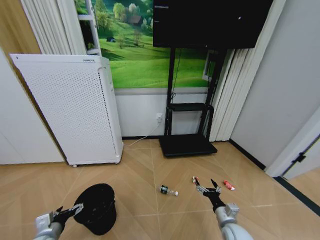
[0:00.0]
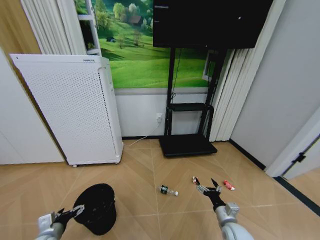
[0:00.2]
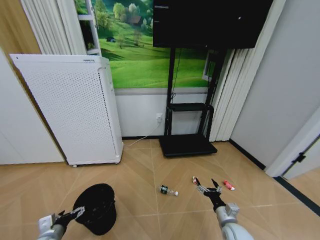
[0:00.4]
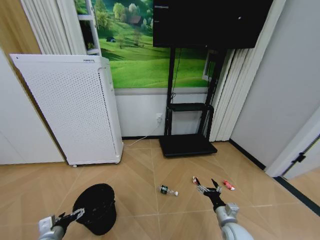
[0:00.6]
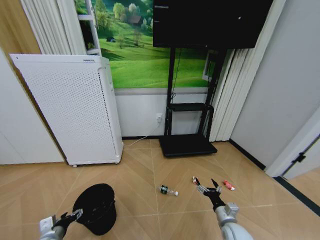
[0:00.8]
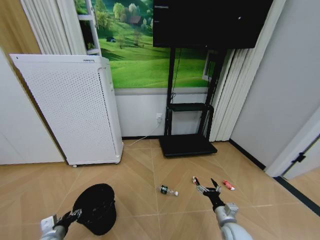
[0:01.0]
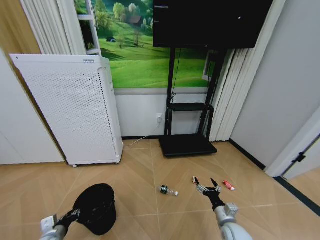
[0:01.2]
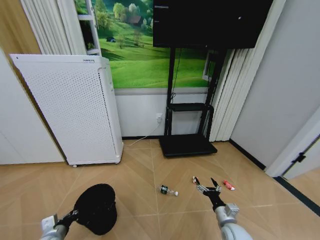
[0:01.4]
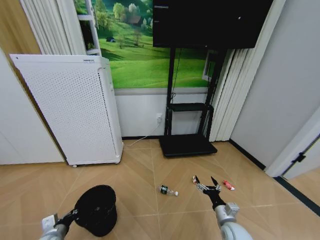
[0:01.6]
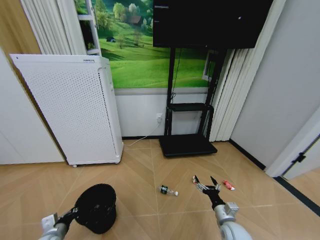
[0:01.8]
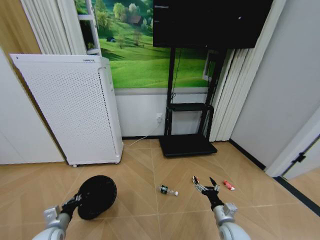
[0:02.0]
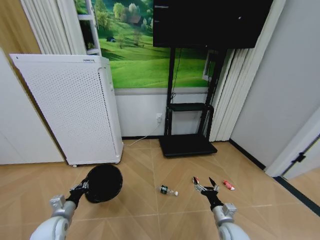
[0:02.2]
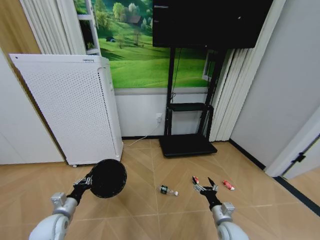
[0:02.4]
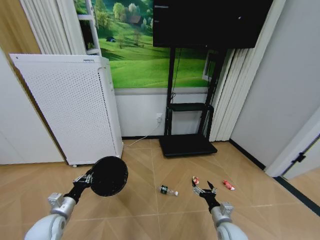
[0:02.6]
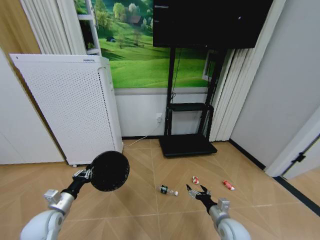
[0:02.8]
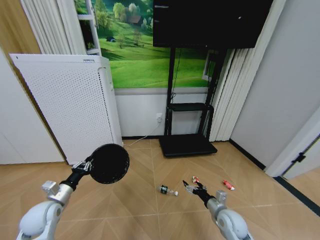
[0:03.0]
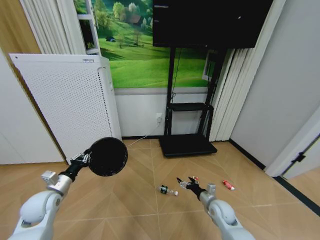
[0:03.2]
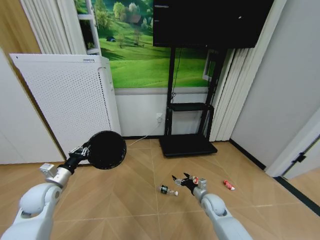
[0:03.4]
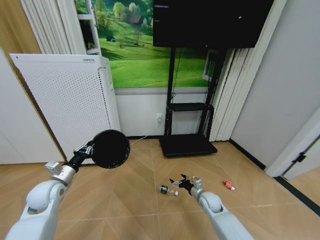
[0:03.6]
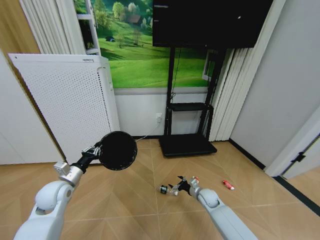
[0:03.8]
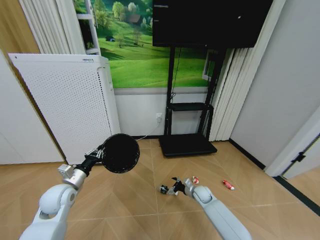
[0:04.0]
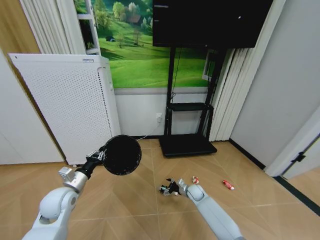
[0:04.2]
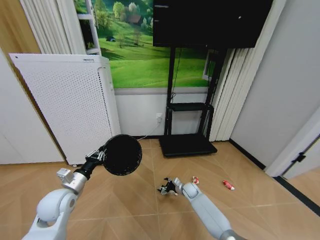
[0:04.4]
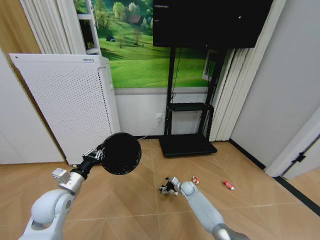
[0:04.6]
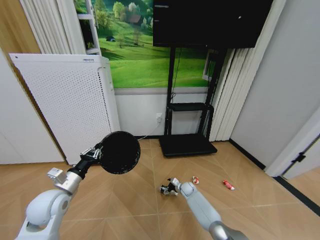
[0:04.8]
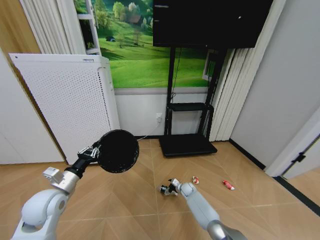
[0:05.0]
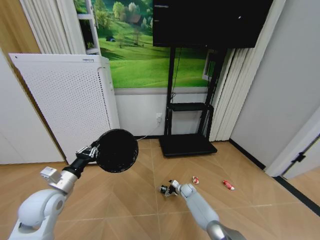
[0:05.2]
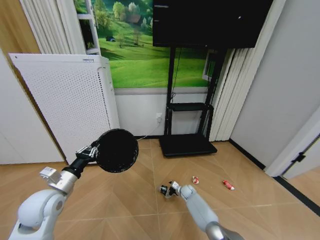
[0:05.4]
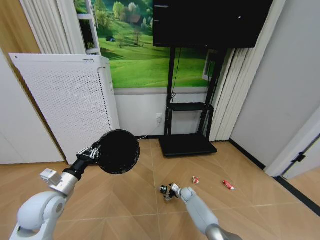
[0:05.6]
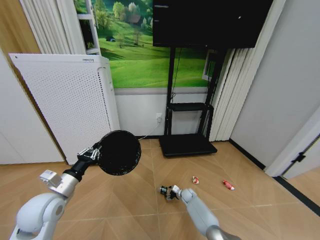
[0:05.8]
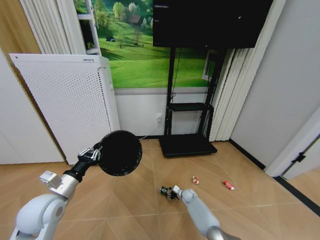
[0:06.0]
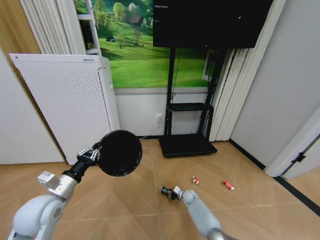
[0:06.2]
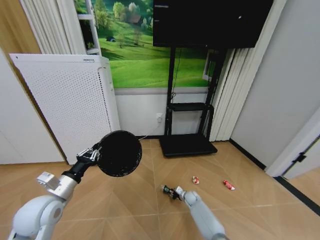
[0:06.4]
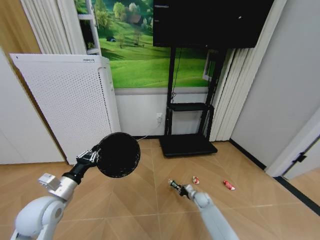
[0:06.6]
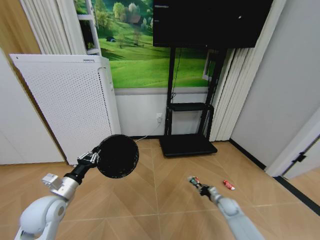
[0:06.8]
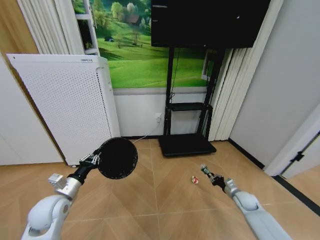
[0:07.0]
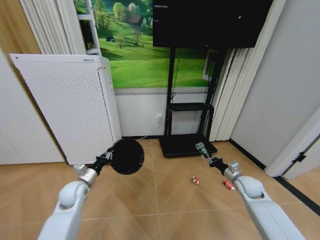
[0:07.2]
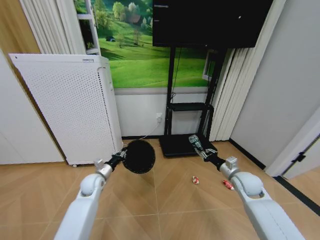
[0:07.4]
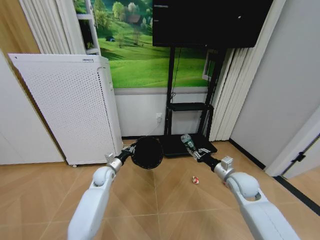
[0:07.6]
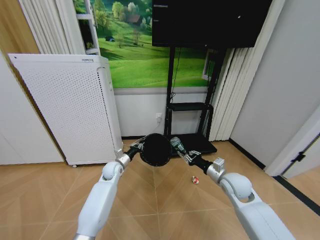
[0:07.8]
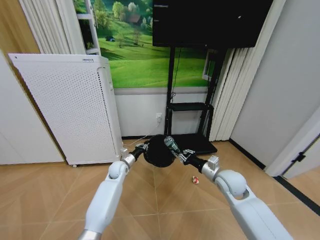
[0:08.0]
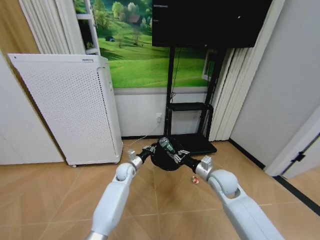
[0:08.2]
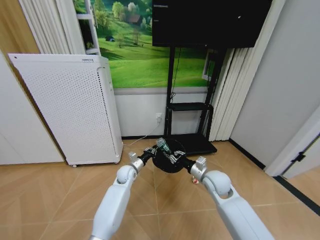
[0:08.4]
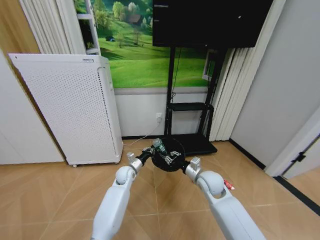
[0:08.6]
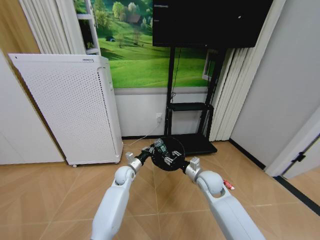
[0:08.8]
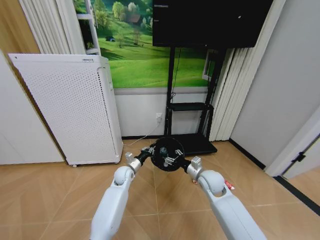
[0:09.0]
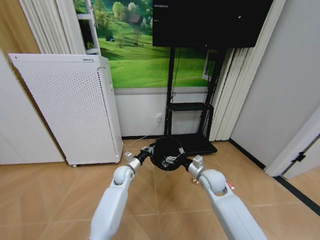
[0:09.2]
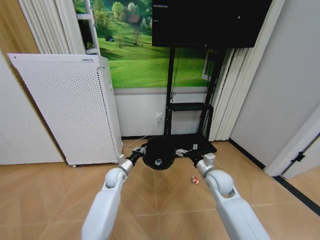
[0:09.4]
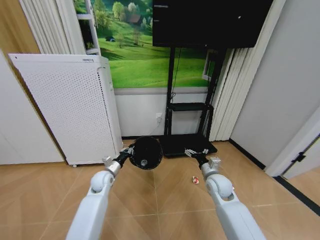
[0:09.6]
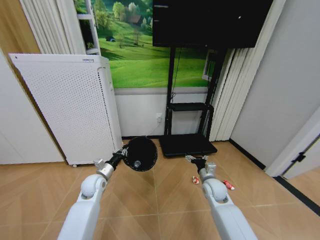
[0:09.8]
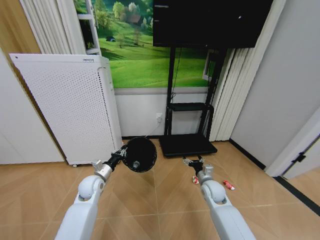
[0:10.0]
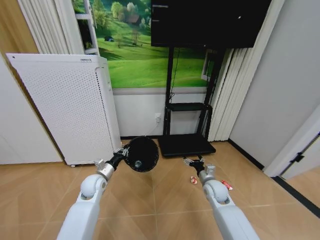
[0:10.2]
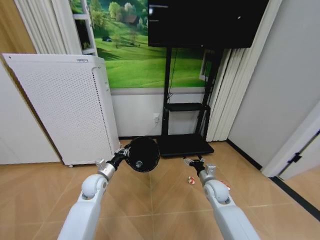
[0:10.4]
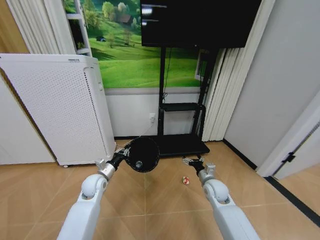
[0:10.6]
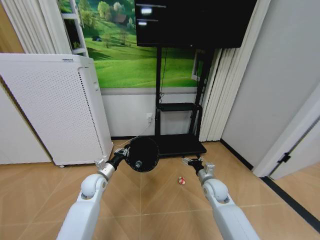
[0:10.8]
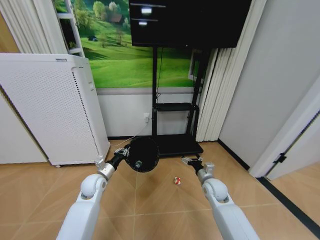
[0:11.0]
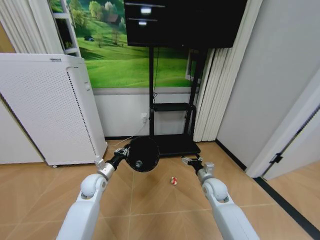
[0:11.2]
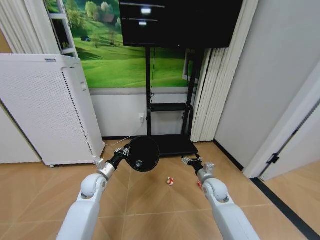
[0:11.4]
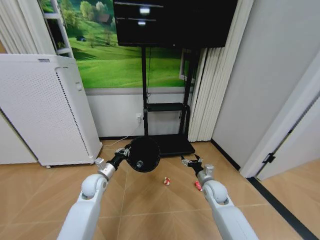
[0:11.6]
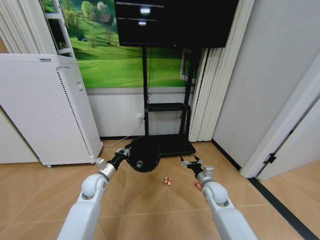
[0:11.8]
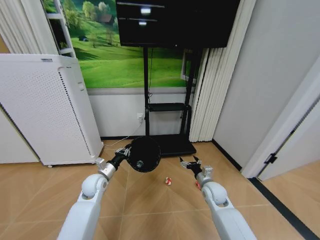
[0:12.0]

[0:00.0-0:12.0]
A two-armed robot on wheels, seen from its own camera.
Task of the whole recording: Pick up the trash bin and place the garbage on the floor into it.
0:00.0 to 0:01.6: The left gripper closes up.
0:01.6 to 0:03.0: The right gripper changes place by approximately 5 cm. Meanwhile the left gripper shifts roughly 15 cm upward and forward.
0:03.0 to 0:04.4: The right gripper goes roughly 25 cm forward, downward and to the left. Meanwhile the left gripper is displaced to the right by roughly 5 cm.
0:04.4 to 0:06.0: The right gripper travels downward by some 5 cm, and closes; the left gripper moves some 5 cm.
0:06.0 to 0:07.6: The left gripper heads forward, downward and to the right, covering approximately 25 cm, while the right gripper heads upward, covering about 30 cm, and closes up.
0:07.6 to 0:09.0: The left gripper moves to the right, approximately 10 cm. Meanwhile the right gripper moves to the left, approximately 10 cm, and opens up.
0:09.0 to 0:10.4: The right gripper moves downward, approximately 5 cm, and opens its fingers. The left gripper heads to the left and backward, covering roughly 15 cm.

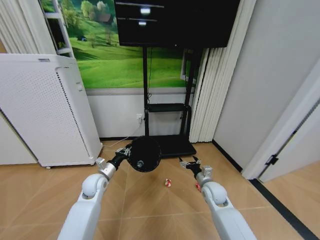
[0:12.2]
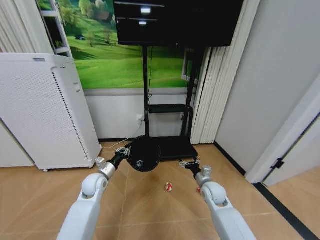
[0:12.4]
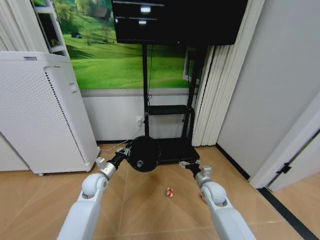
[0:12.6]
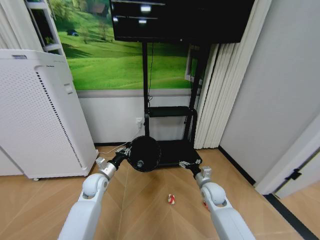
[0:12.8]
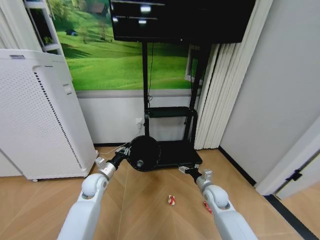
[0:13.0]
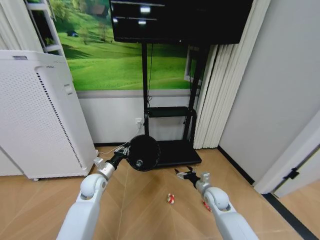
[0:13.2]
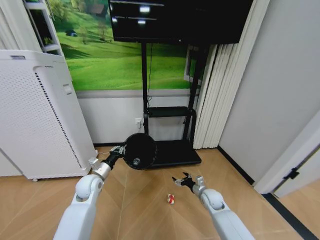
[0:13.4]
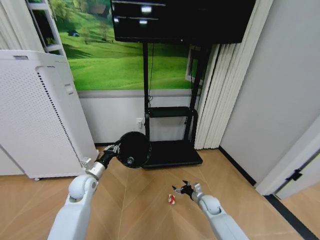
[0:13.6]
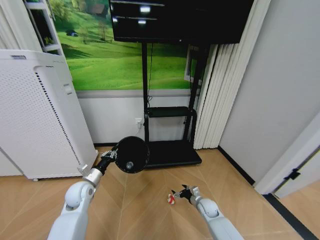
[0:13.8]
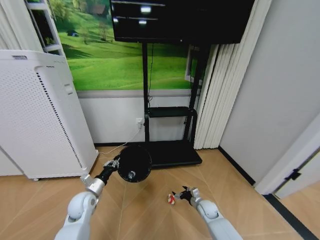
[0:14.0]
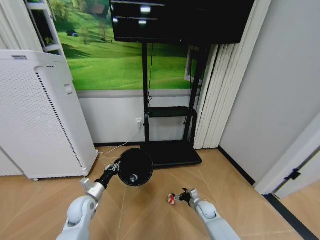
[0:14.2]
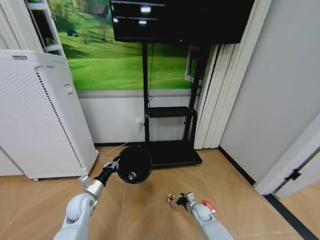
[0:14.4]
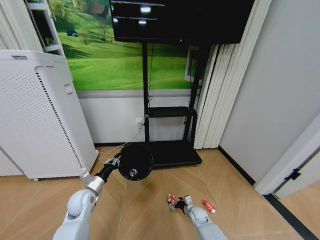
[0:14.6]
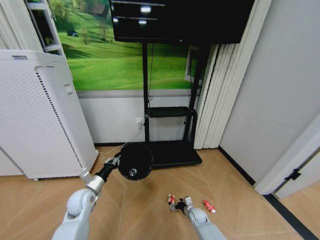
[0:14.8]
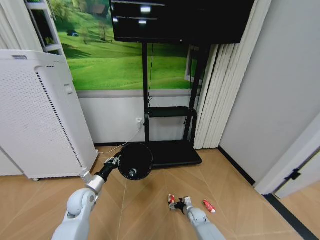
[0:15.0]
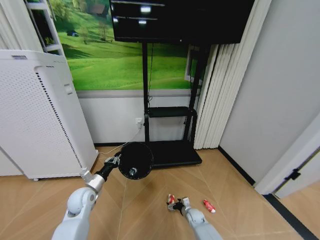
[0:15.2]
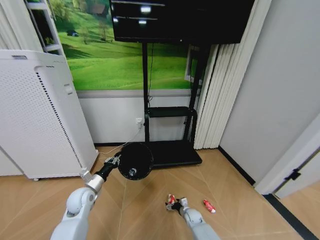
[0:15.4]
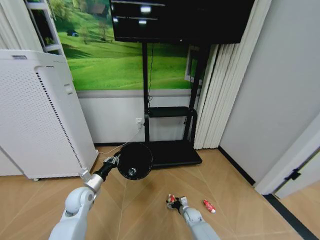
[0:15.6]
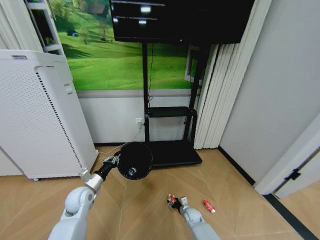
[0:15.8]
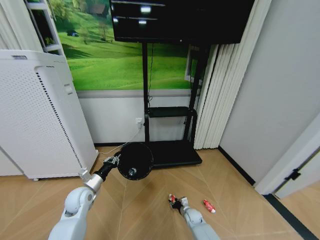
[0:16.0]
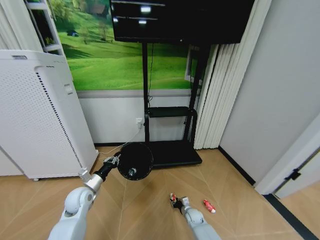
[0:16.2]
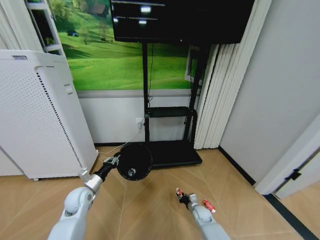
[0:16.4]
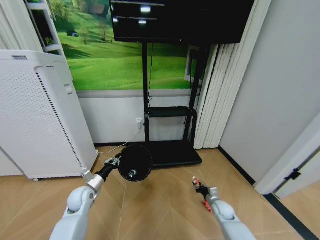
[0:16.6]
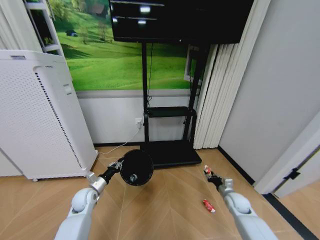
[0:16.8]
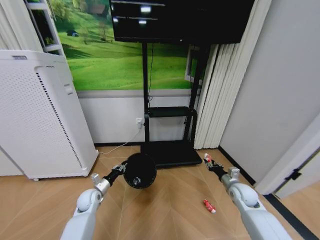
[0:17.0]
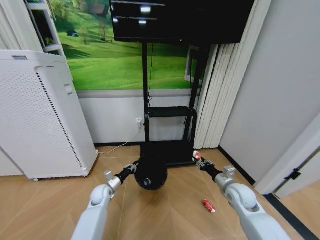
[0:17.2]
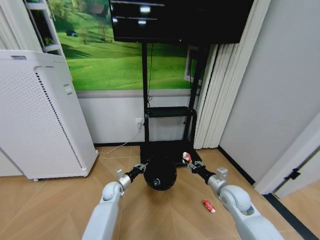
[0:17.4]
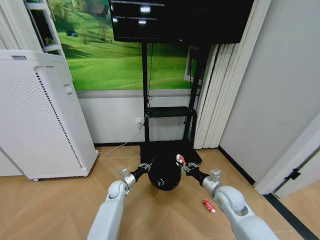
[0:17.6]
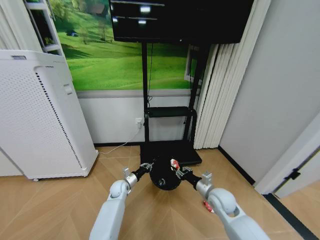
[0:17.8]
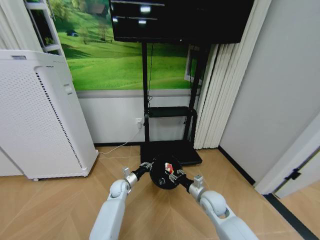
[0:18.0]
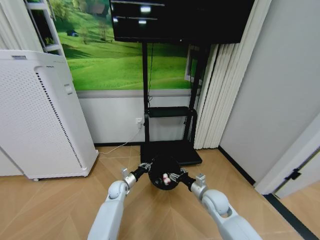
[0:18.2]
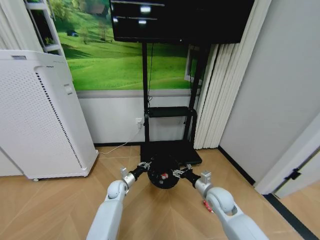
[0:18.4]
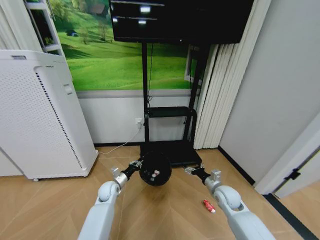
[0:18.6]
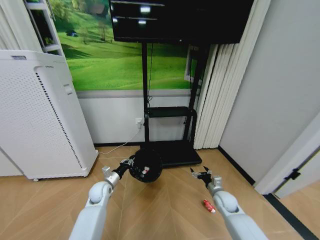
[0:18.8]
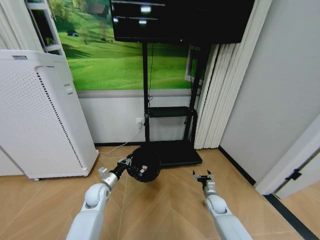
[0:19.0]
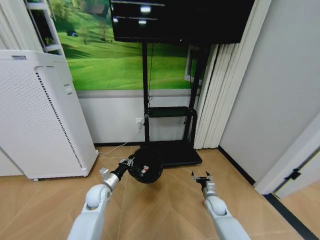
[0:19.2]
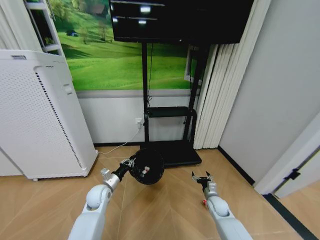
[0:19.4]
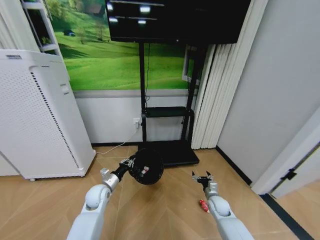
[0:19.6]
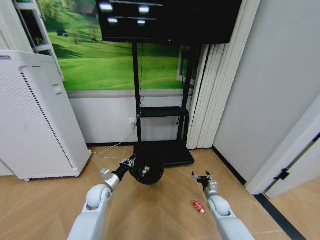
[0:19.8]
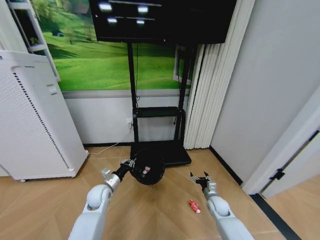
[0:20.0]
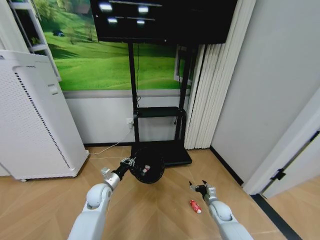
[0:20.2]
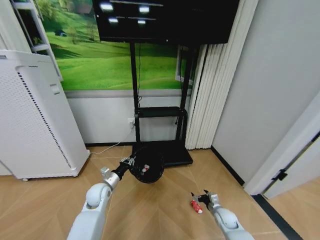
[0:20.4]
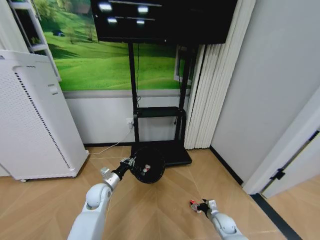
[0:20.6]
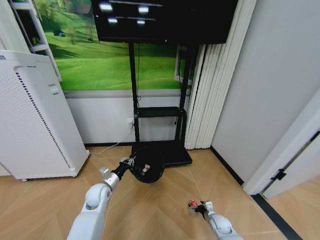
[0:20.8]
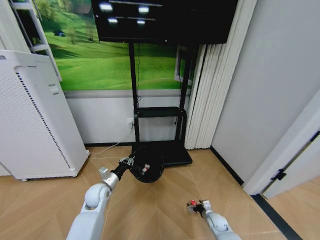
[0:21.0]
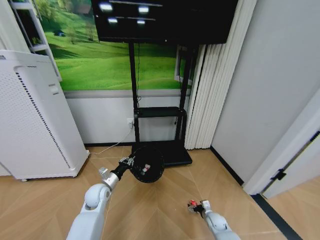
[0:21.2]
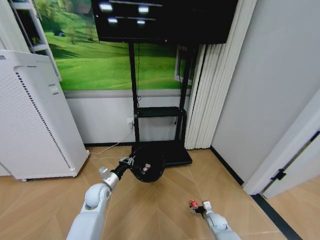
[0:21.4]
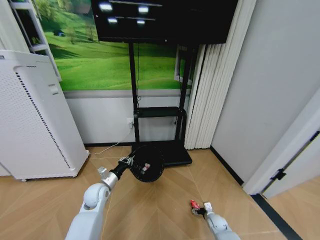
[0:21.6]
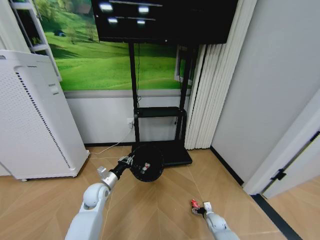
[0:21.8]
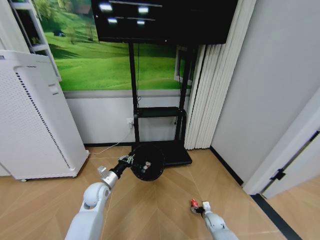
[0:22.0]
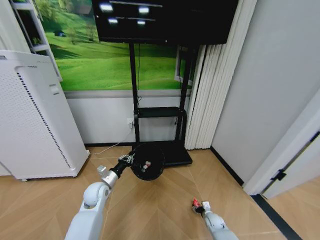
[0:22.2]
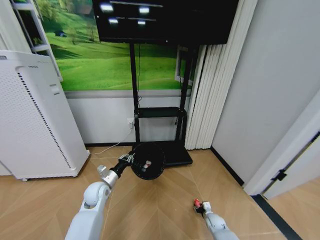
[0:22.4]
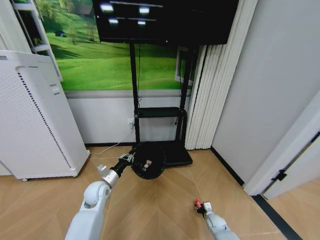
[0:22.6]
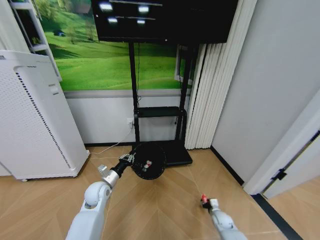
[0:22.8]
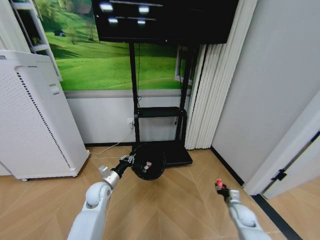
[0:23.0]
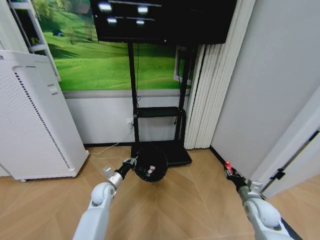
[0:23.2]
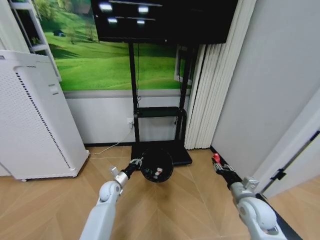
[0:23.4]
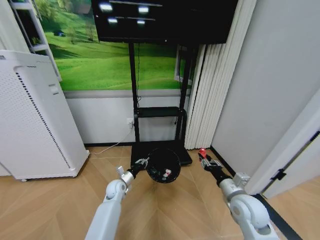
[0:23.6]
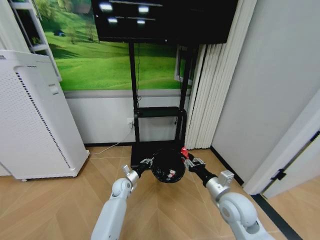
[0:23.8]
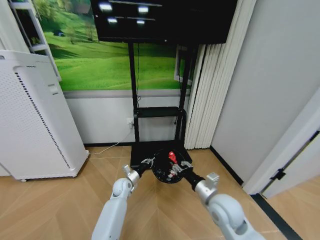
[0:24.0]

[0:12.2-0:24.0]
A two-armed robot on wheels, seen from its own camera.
Task of the whole recording: Pick up the trash bin and place the garbage on the floor into it.
0:12.2 to 0:13.6: The right gripper moves downward, approximately 15 cm.
0:13.6 to 0:15.2: The right gripper travels downward and to the left by roughly 15 cm.
0:15.2 to 0:16.6: The right gripper heads to the right and upward, covering about 10 cm, and closes its fingers.
0:16.6 to 0:18.2: The right gripper shifts some 20 cm upward, and opens its fingers; the left gripper shifts about 20 cm to the right, downward and forward.
0:18.2 to 0:19.6: The right gripper heads downward and to the right, covering roughly 15 cm, and opens its fingers. The left gripper shifts about 10 cm upward, backward and to the left.
0:19.6 to 0:21.0: The right gripper goes about 10 cm downward.
0:21.0 to 0:22.6: The right gripper closes.
0:22.6 to 0:24.0: The left gripper travels downward, to the right and forward by approximately 15 cm; the right gripper shifts approximately 35 cm upward.
